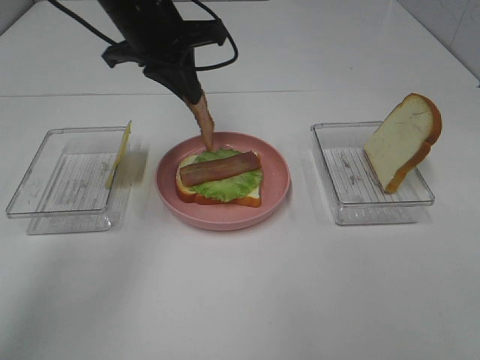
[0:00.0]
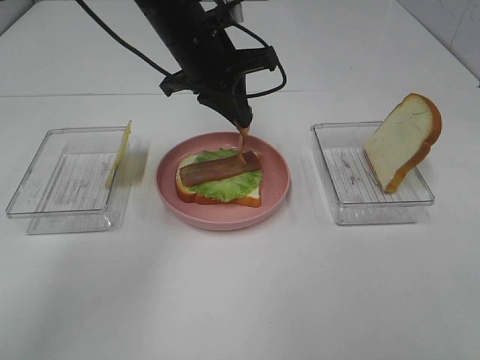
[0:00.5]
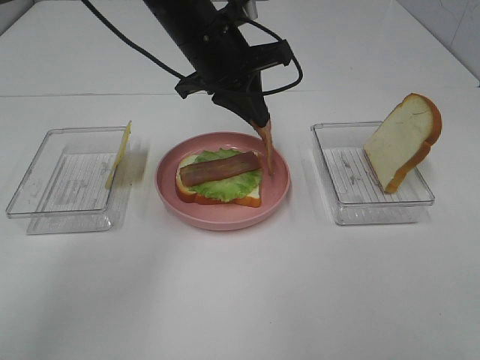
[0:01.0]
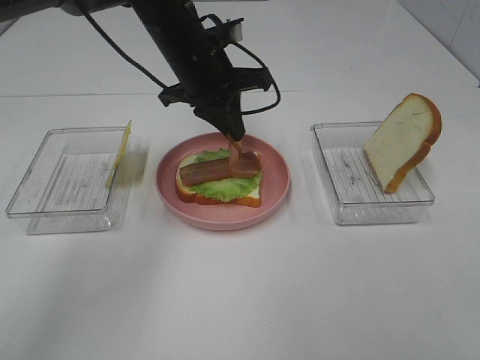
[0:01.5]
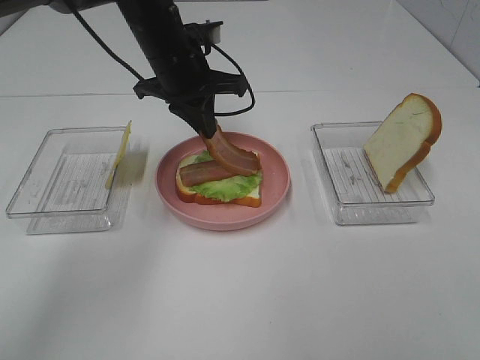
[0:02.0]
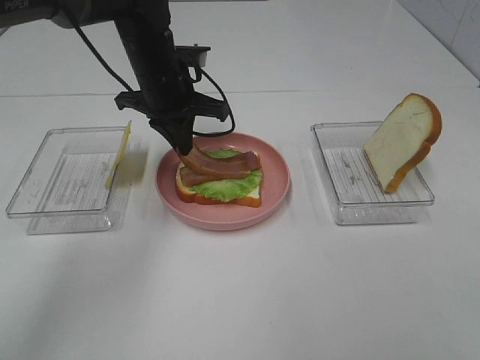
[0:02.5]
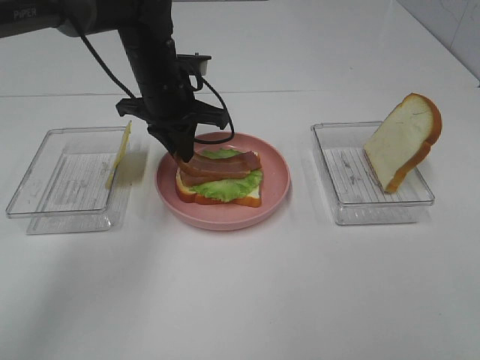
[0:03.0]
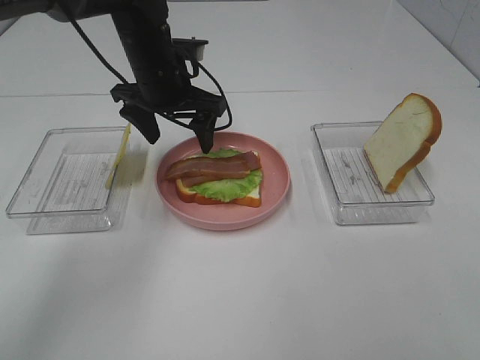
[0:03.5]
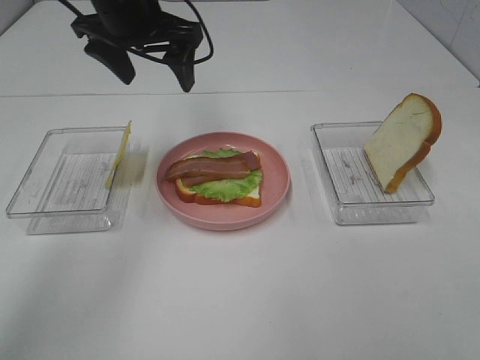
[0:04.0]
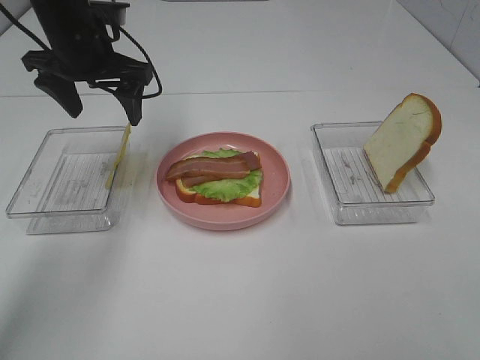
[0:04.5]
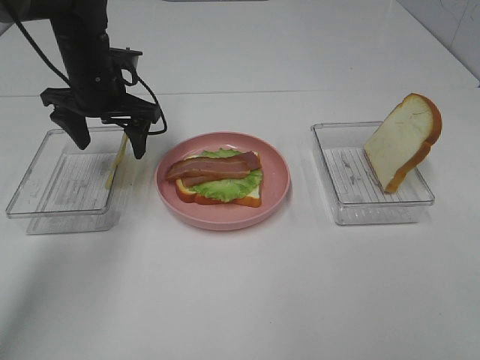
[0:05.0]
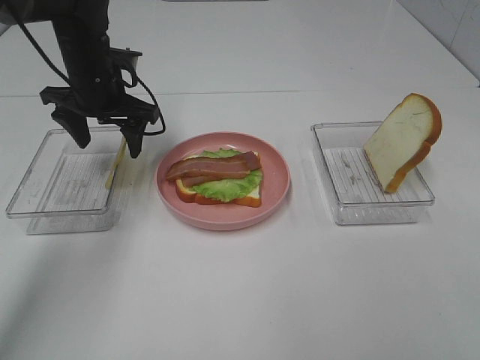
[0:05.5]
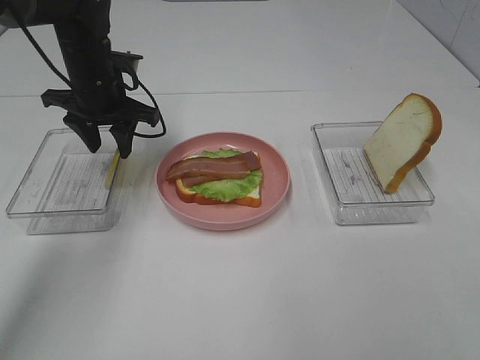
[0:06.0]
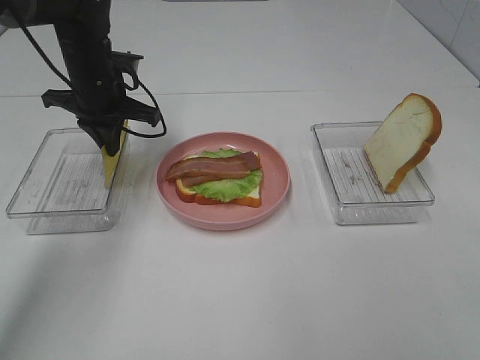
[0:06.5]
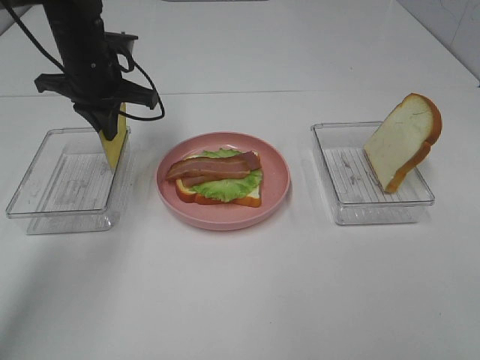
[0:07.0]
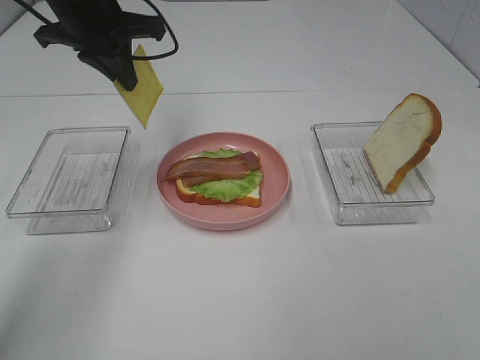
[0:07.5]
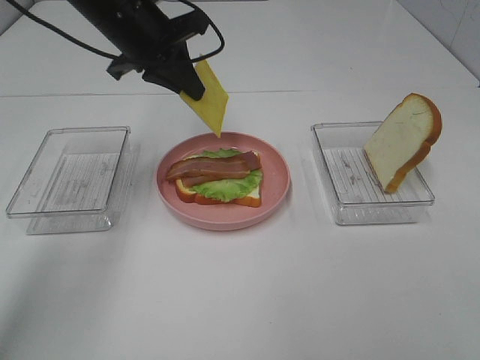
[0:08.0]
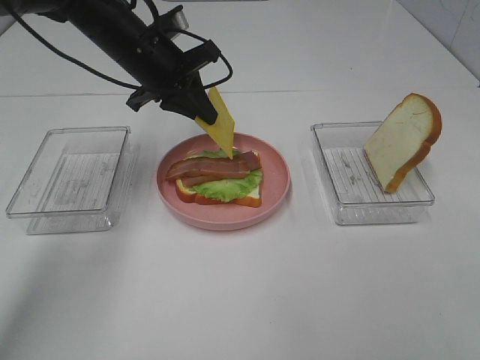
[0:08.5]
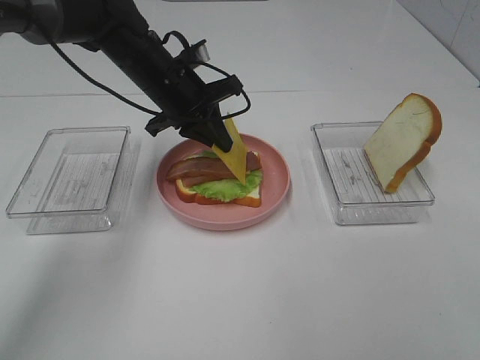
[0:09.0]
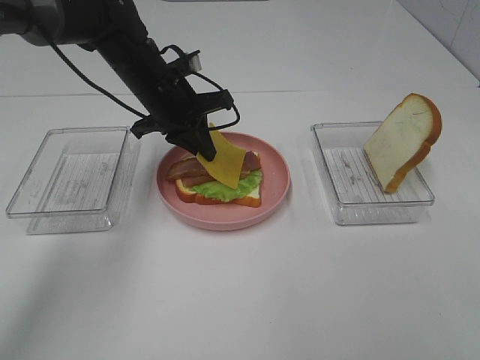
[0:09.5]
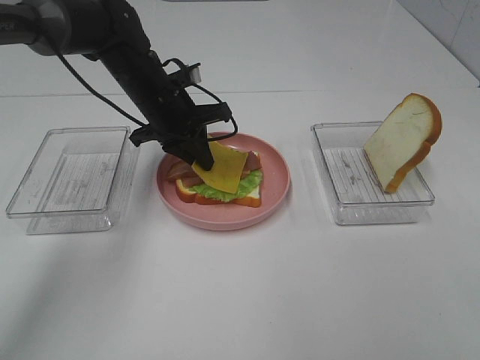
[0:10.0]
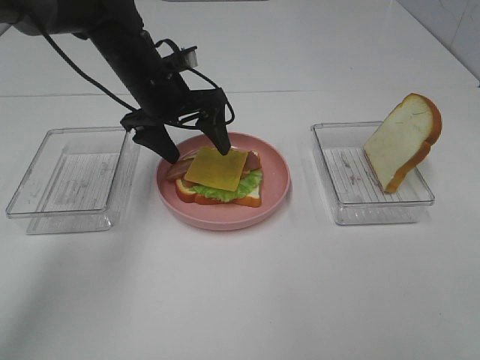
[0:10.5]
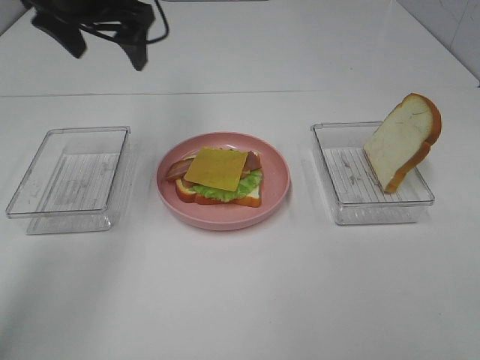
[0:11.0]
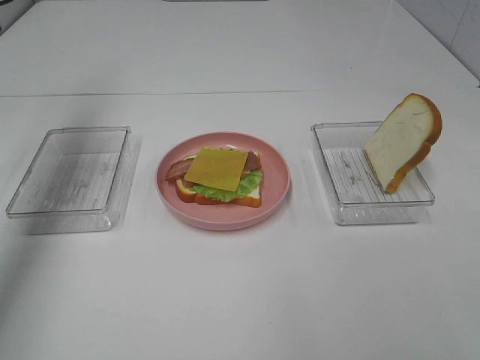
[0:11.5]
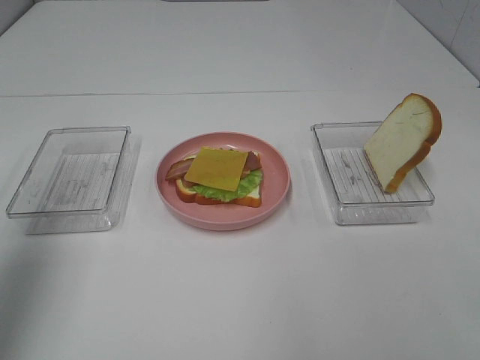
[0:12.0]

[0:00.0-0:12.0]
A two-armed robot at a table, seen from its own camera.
Task of the whole recording: Make sandwiches.
Step, 0:00.0 to 0:03.5: Left hand:place bacon on bacon.
Step, 0:04.0 to 0:06.5: Left hand:grab the cheese slice.
Step, 0:07.0 to 0:10.0: Left hand:place the cheese slice on top of the bacon.
0:00.0 to 0:02.0: The left gripper heads downward, covering roughly 5 cm.
0:02.0 to 0:04.0: The left gripper heads upward, covering roughly 5 cm, and opens up.
0:04.0 to 0:06.0: The left gripper is displaced downward and to the left by approximately 10 cm, and closes its fingers.
0:06.0 to 0:08.0: The left gripper shifts approximately 10 cm upward and to the right, and closes its fingers.
0:08.0 to 0:10.0: The left gripper moves downward, some 10 cm.
0:10.0 to 0:12.0: The left gripper heads backward, to the left and upward, covering about 40 cm, and opens.

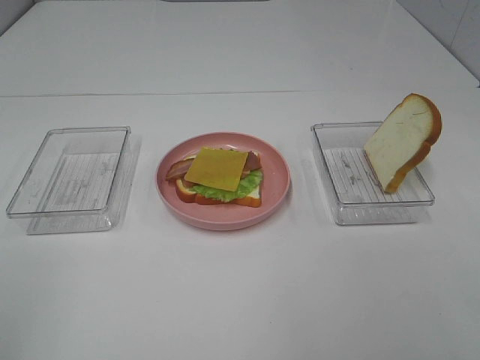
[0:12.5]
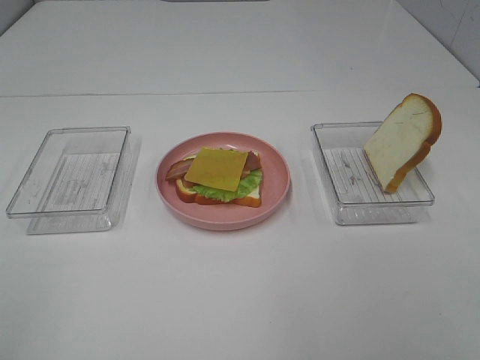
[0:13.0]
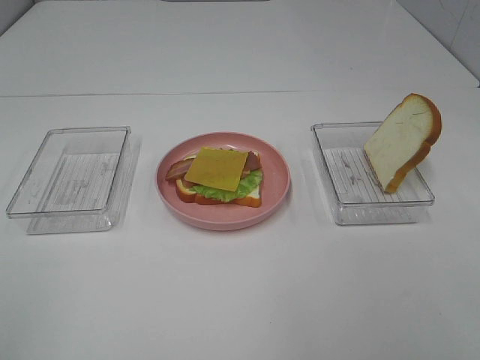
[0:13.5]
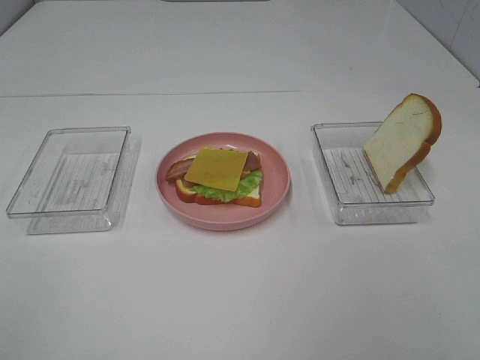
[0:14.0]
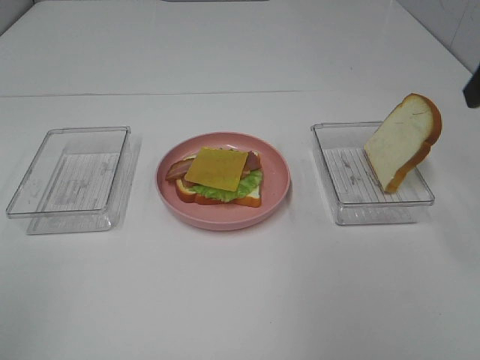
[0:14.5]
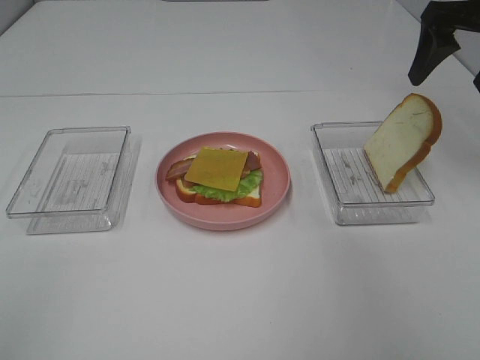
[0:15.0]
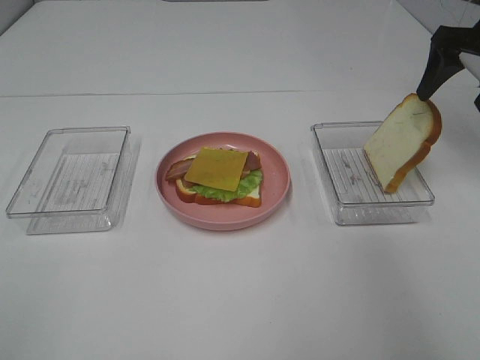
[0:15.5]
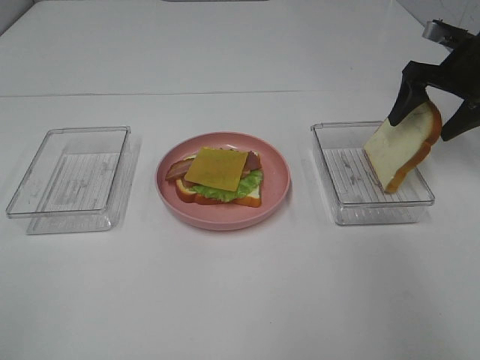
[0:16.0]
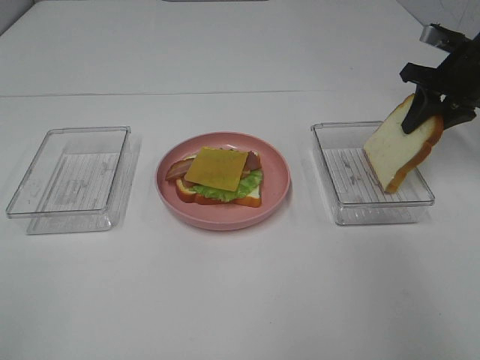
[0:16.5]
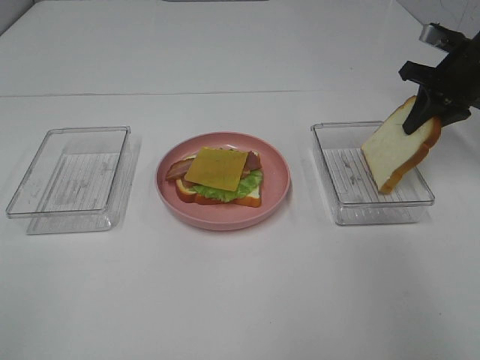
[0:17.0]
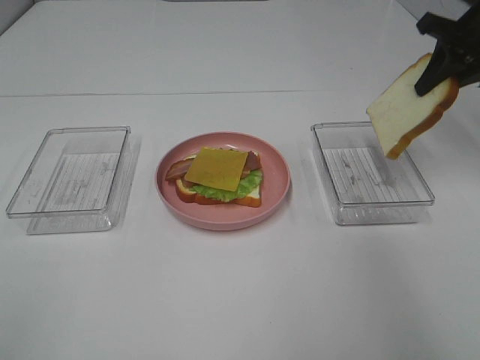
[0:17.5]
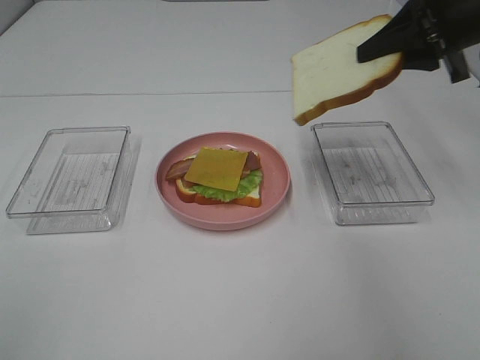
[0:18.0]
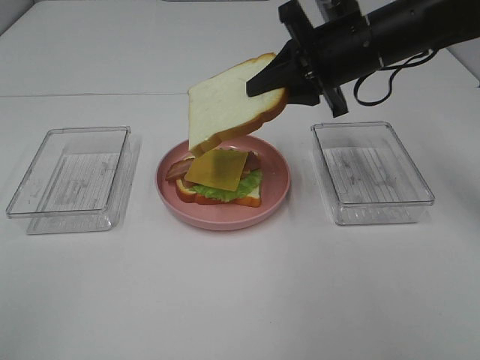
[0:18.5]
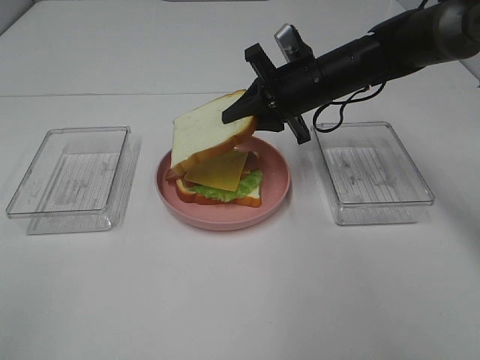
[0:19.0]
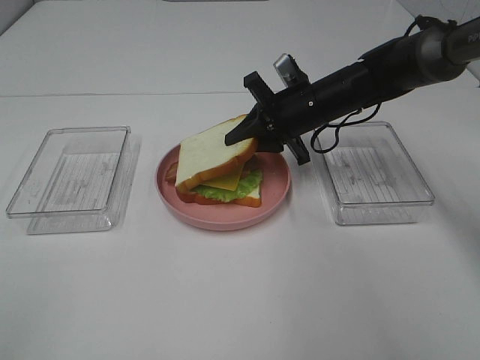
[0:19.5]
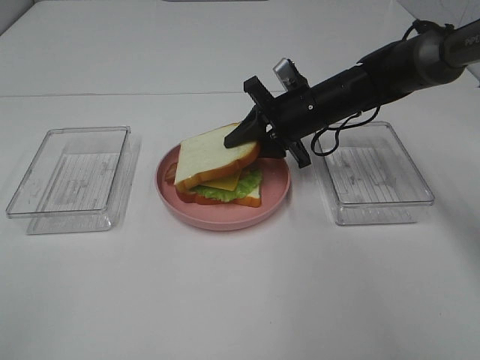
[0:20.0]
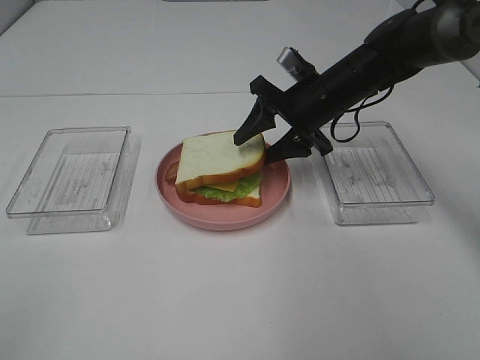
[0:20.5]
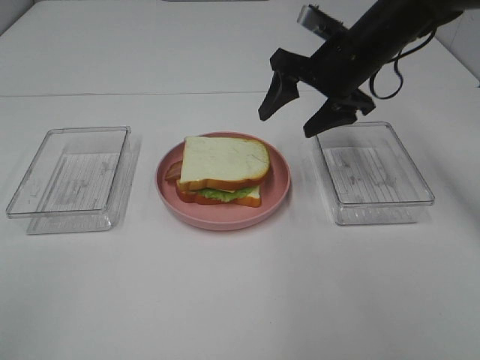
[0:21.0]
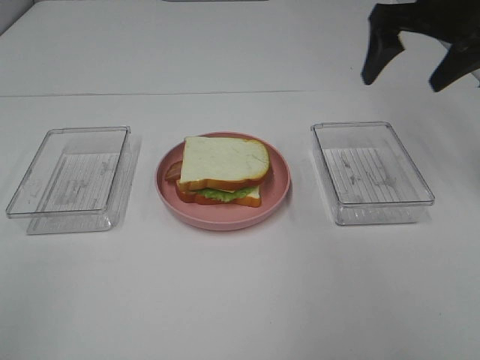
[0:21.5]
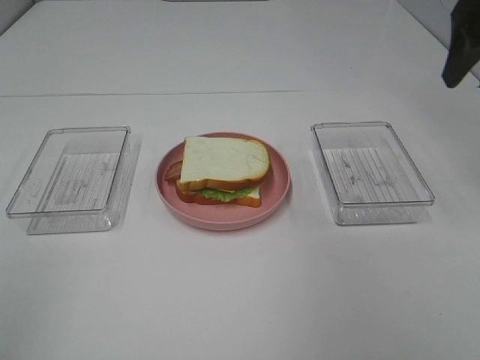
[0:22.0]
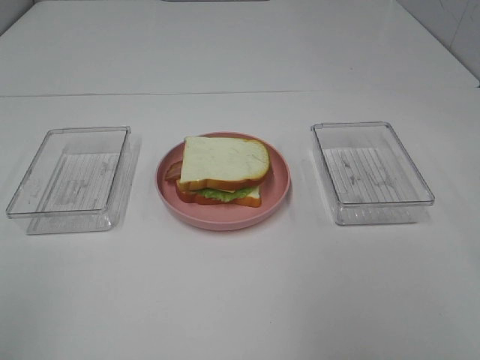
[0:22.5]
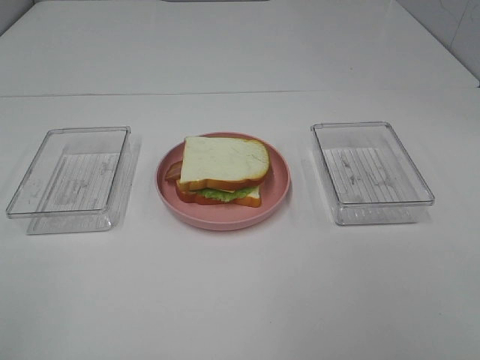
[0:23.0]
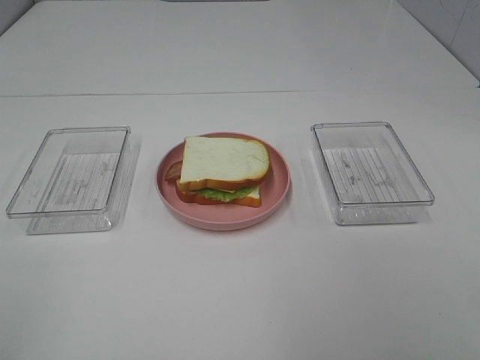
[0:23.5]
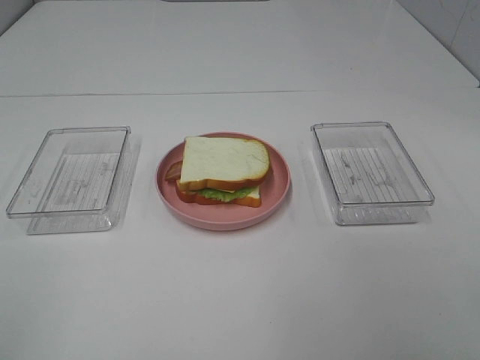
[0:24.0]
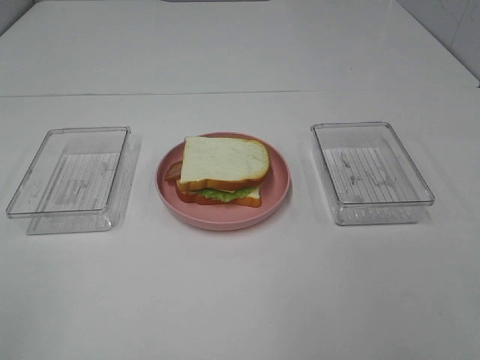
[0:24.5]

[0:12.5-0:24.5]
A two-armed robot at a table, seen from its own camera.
Task of the whole recording: Make sandwiches.
Step, 0:12.5 to 0:17.0: Right hand:grab the bread slice.
Step, 0:17.5 to 0:20.5: Right hand:place the bread slice on the cheese slice.
0:14.5 to 0:16.5: The right gripper shifts roughly 25 cm forward and downward, and closes up.
0:16.5 to 0:18.5: The right gripper travels to the left by roughly 20 cm.
0:18.5 to 0:20.5: The right gripper goes about 10 cm downward, and opens.
0:20.5 to 0:22.5: The right gripper goes roughly 40 cm backward, upward and to the right, and opens.
